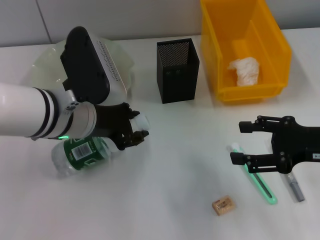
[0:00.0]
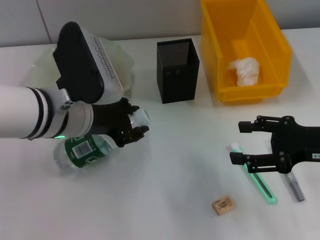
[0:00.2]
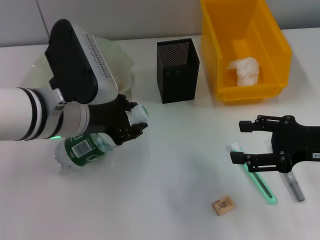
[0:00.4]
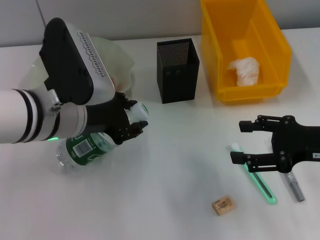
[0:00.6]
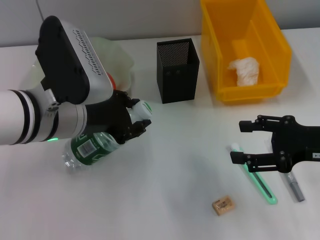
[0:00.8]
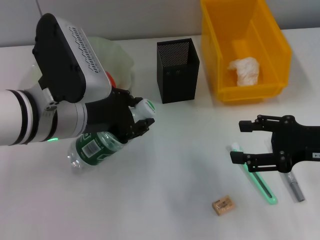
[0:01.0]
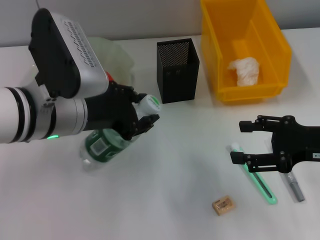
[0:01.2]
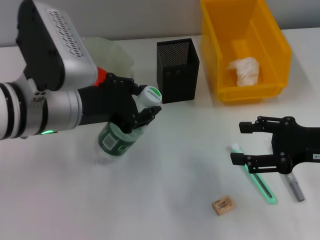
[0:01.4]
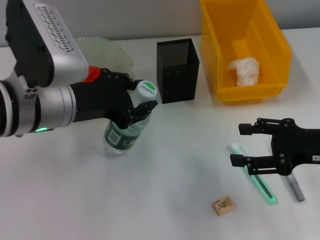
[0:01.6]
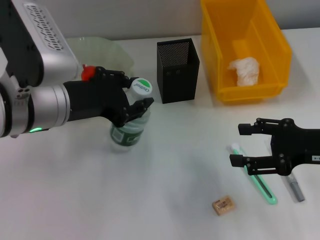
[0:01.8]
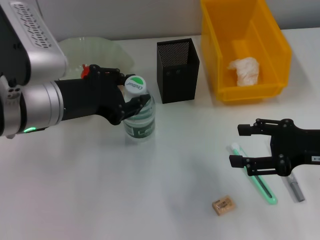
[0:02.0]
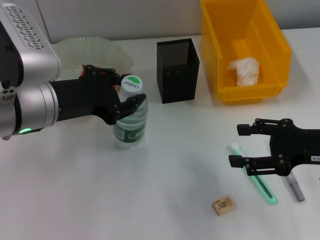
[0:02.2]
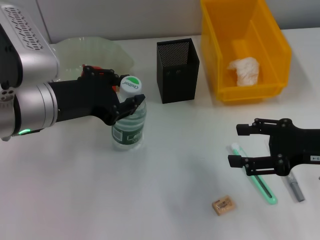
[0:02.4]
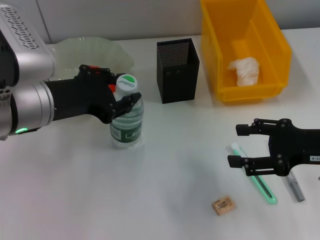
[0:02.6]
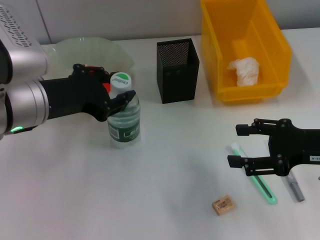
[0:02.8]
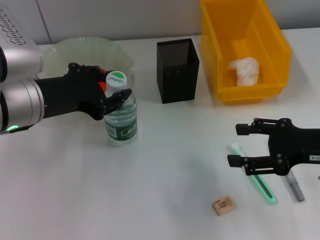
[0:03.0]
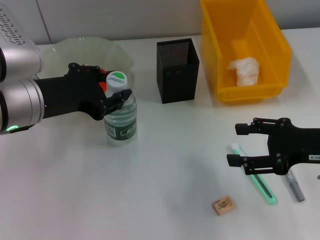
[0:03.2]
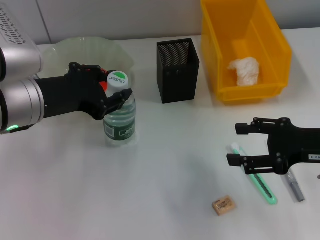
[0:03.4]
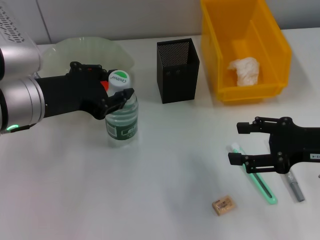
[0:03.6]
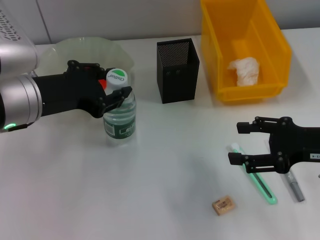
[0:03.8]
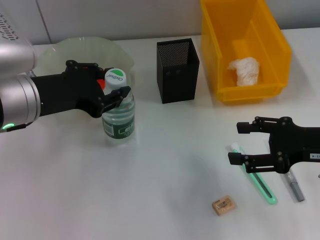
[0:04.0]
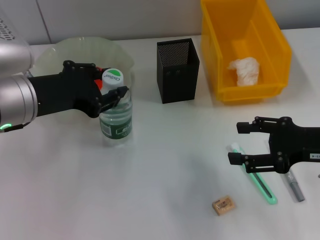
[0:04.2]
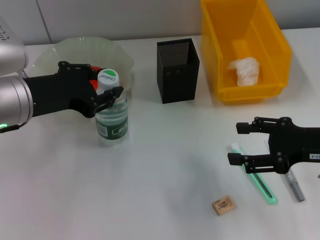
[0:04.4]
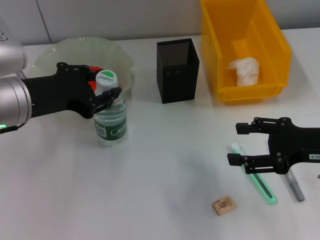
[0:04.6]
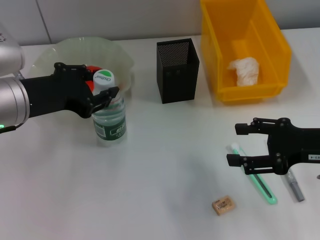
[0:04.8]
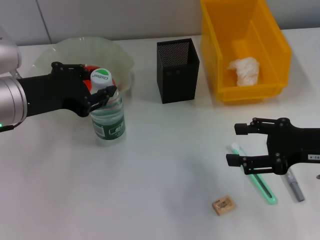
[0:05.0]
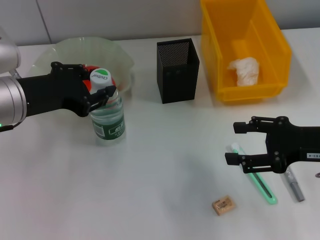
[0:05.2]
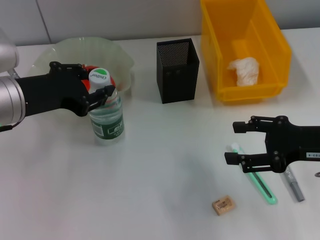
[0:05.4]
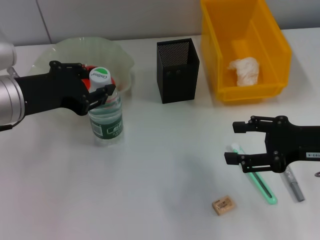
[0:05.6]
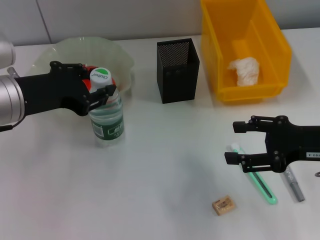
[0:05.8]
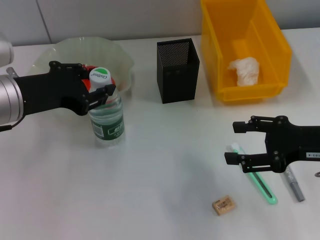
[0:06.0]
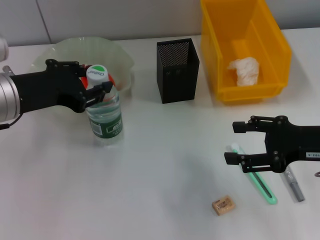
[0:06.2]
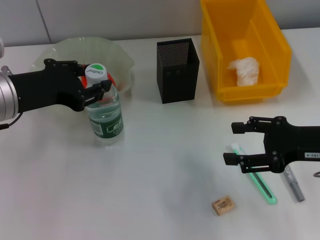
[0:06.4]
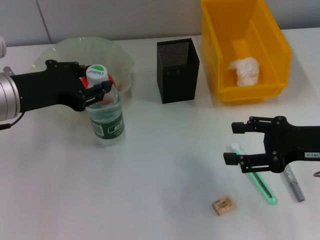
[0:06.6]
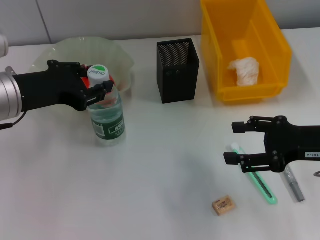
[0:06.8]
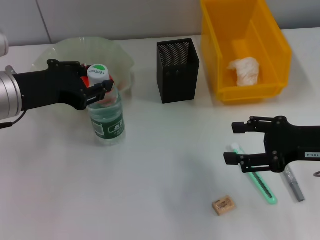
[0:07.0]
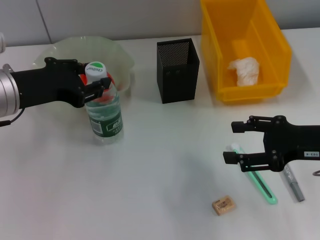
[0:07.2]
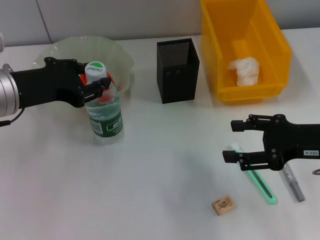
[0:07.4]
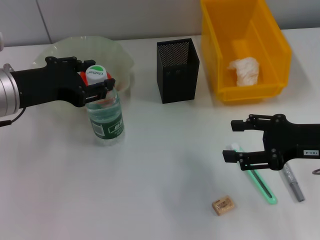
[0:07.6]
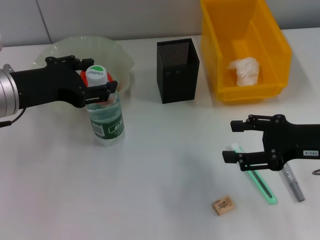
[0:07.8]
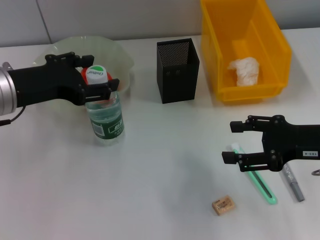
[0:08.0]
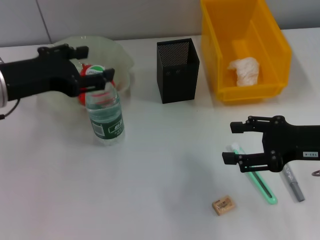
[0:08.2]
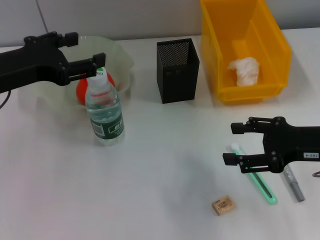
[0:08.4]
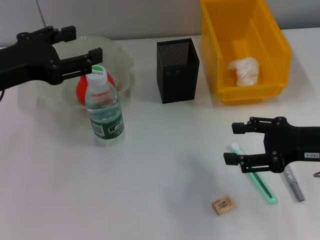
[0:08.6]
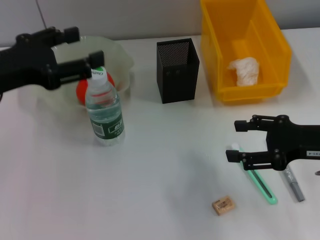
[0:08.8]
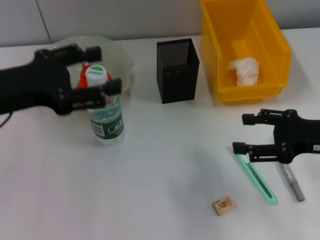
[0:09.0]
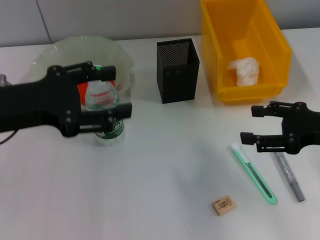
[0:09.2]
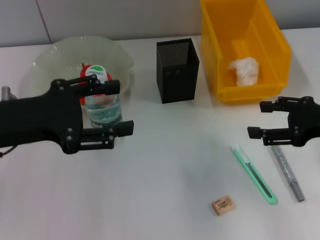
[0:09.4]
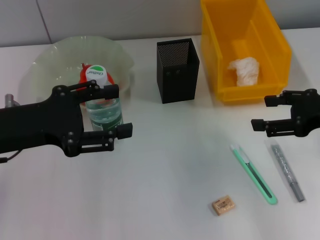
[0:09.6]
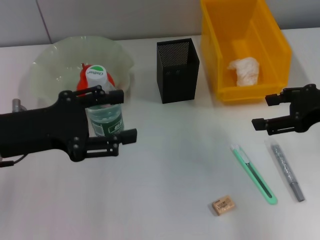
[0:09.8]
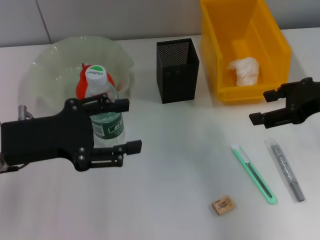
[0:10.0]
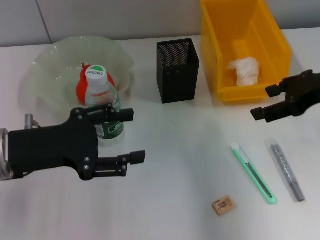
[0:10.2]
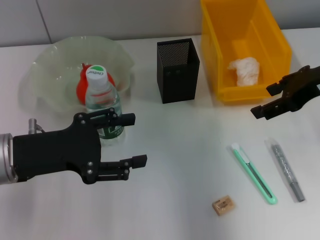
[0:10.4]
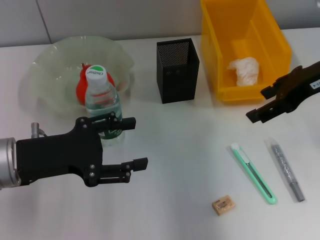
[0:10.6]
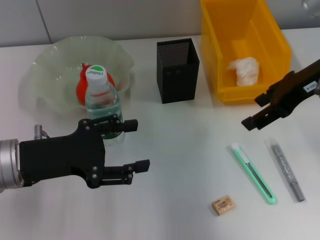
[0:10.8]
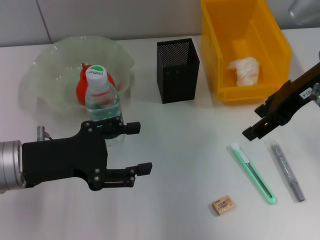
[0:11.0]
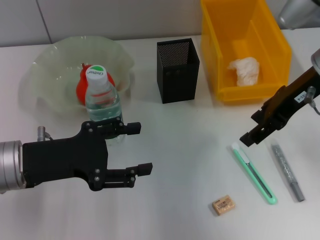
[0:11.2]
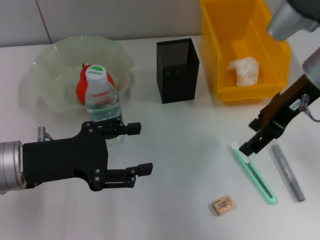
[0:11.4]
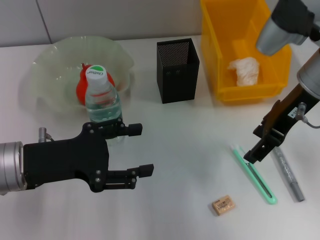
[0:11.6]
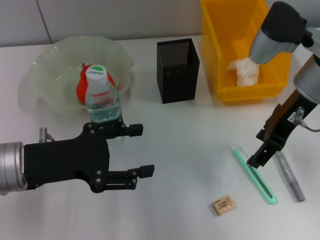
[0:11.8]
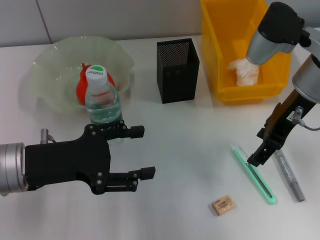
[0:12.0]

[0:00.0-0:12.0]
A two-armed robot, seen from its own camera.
Step, 0:00.0 to 0:07.4: Place the water bottle on the table with the left hand.
0:00.0 to 0:01.6: The left gripper ends up some 5 cm from where it was.
0:01.6 to 0:03.0: The grippers make only small movements.
0:03.0 to 0:04.4: Both grippers stay about where they are.
0:04.4 to 0:06.0: Both grippers stay about where they are.
0:06.0 to 0:07.6: The grippers make only small movements.
0:07.6 to 0:09.0: The left gripper opens up.
0:09.0 to 0:10.4: The right gripper is displaced upward and forward by about 10 cm; the left gripper goes about 5 cm downward.
0:10.4 to 0:12.0: The right gripper moves to the left, roughly 5 cm.

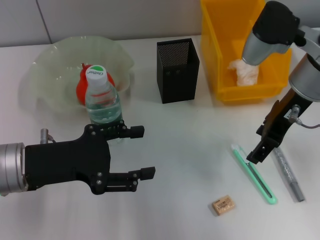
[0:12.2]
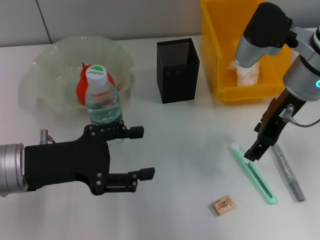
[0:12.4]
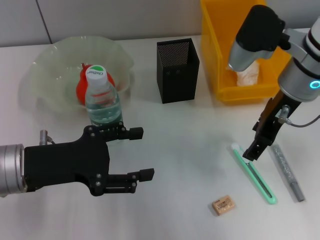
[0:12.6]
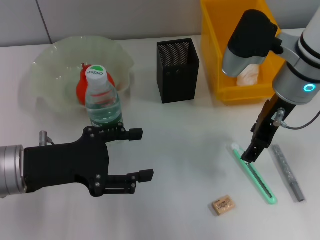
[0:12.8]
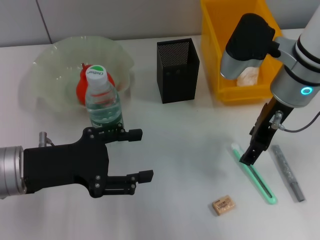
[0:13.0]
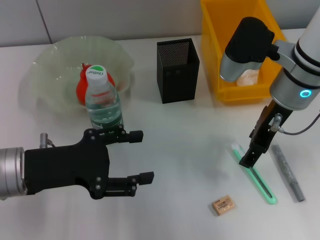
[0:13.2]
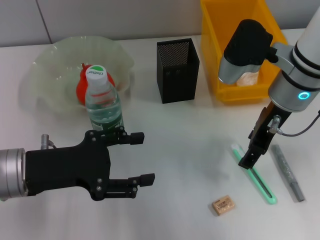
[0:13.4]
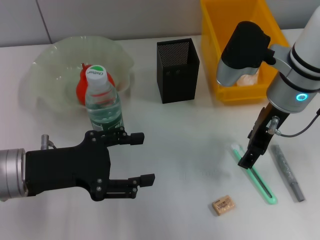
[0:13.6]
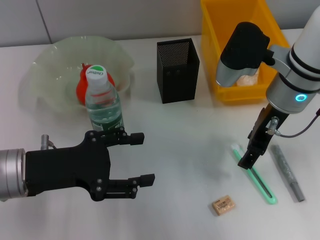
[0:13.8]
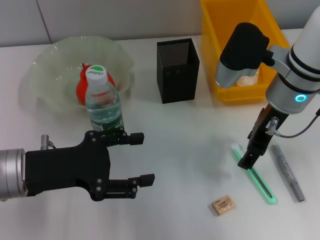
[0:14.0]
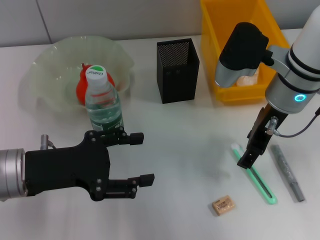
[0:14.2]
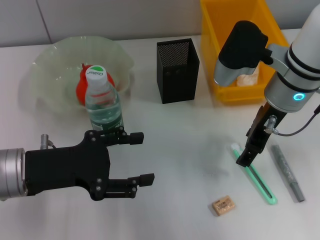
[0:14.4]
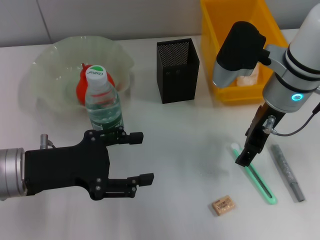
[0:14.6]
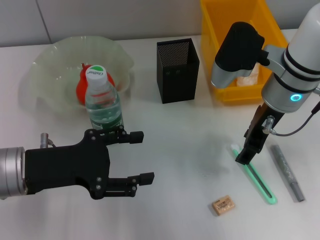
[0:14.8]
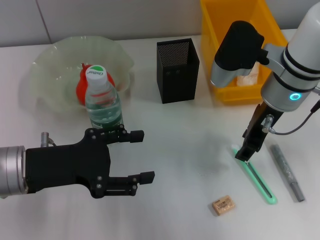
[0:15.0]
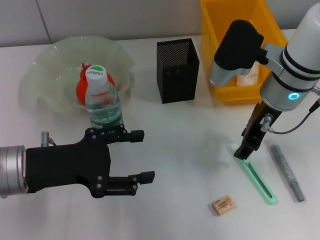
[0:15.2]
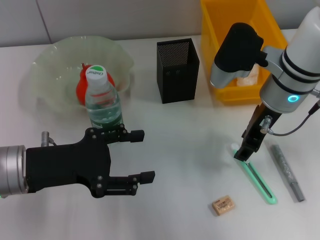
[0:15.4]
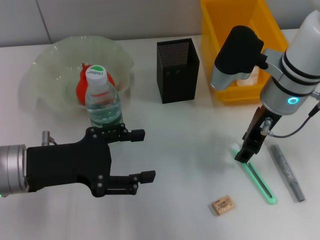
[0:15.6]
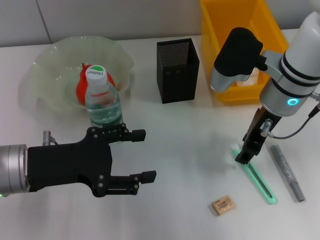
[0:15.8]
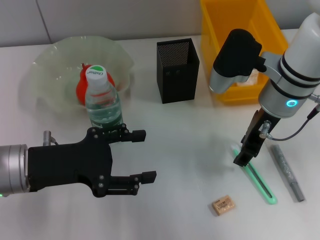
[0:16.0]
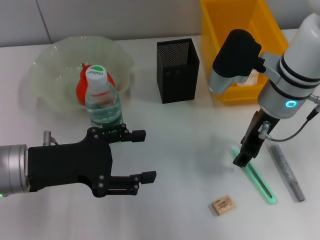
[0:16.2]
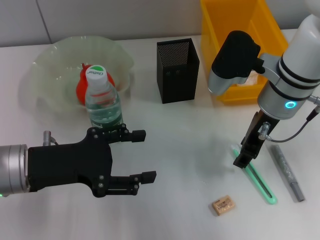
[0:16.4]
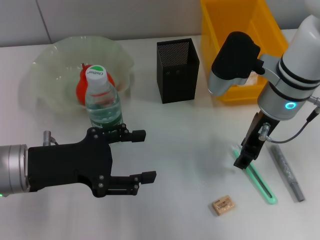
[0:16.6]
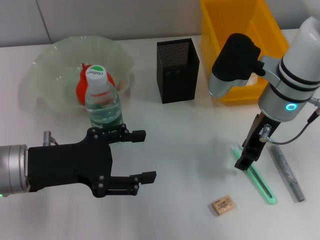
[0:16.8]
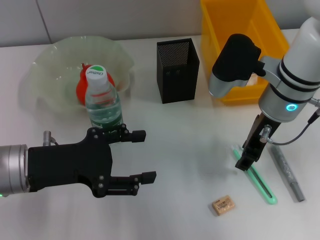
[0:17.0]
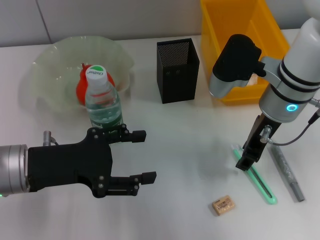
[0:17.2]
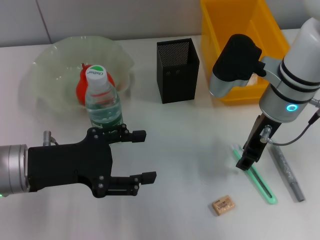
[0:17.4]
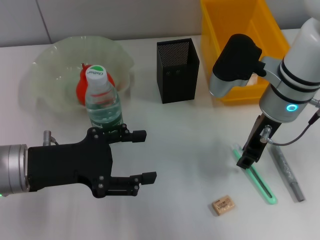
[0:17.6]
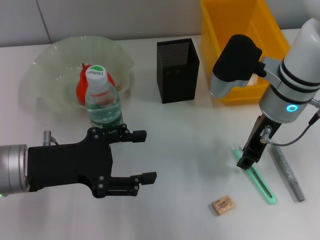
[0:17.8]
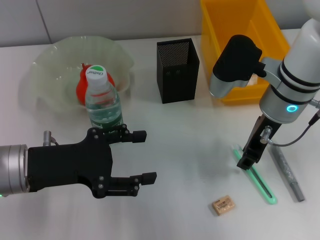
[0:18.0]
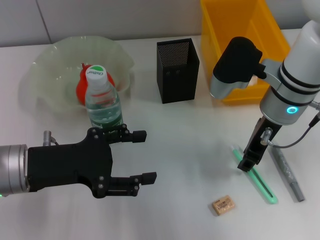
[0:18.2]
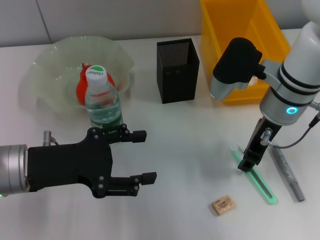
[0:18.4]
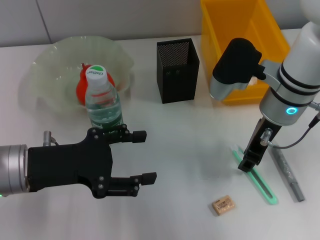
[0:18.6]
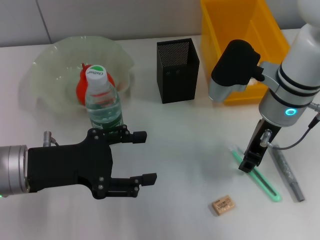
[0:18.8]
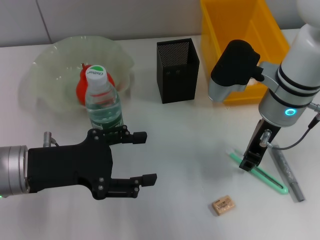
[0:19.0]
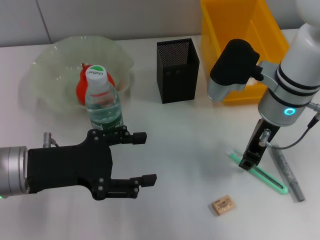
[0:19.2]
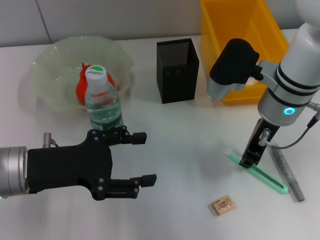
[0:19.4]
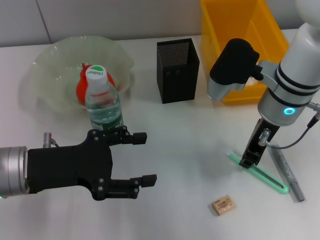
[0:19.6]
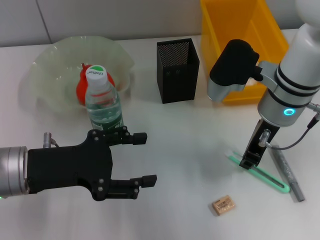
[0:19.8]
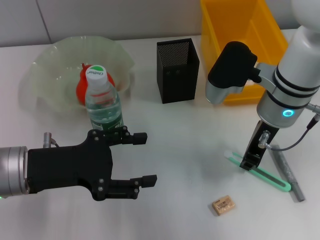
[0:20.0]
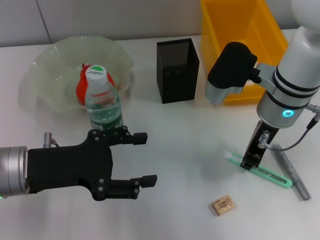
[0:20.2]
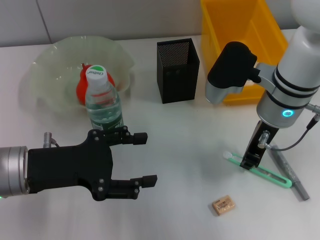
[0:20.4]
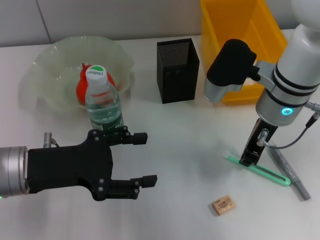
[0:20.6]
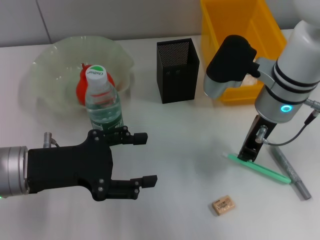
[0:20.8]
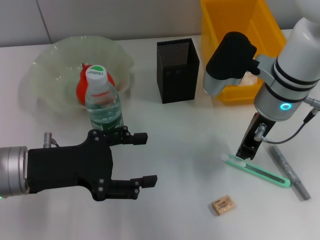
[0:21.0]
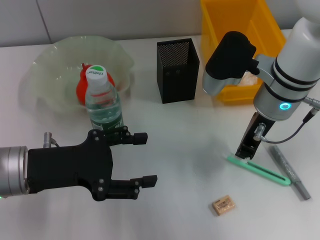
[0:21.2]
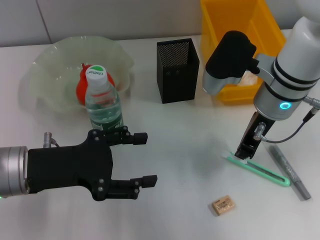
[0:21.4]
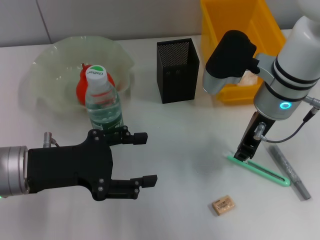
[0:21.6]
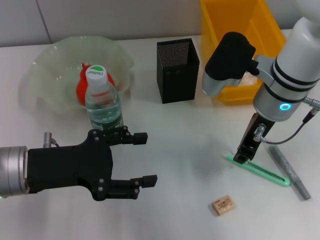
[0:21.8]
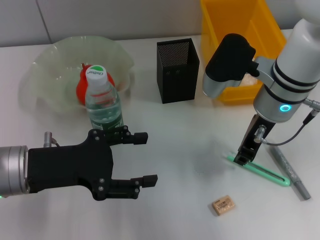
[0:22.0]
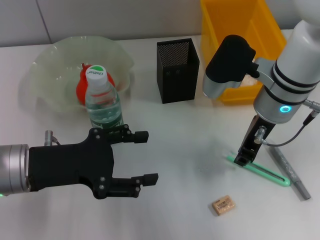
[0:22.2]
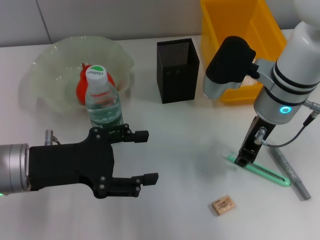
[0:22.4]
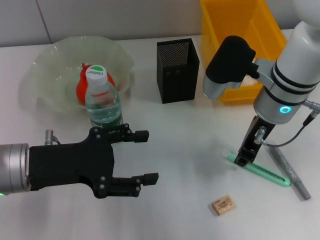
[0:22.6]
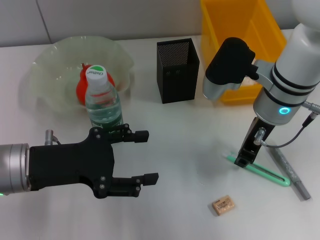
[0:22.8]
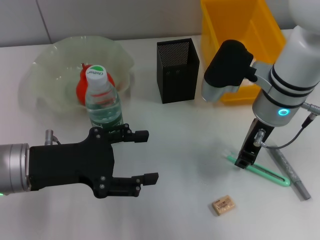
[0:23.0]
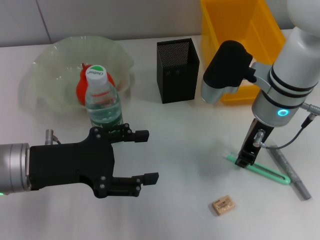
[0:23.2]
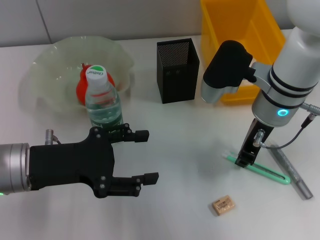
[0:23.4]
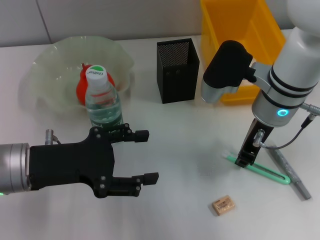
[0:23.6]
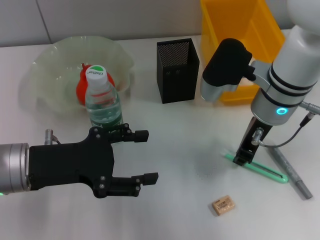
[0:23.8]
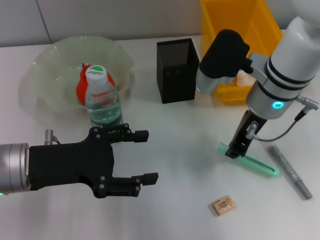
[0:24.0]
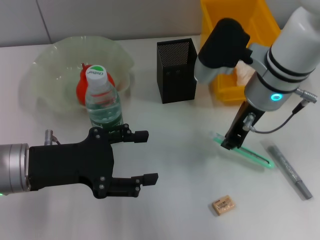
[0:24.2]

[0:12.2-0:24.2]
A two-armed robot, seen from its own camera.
Step, 0:12.2 to 0:23.2: Grab the blue utility knife with the right hand.
0:12.2 to 0:13.8: The grippers stay close to where they were, moving slightly.
0:13.8 to 0:15.2: Both grippers stay about where they are.
0:15.2 to 0:16.6: Both grippers stay about where they are.
0:16.6 to 0:22.6: Both grippers stay about where they are.
0:22.6 to 0:24.2: The grippers stay close to where they were, moving slightly.
